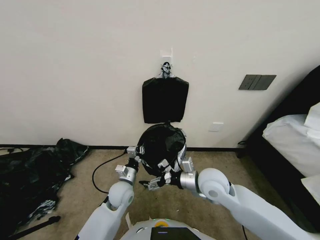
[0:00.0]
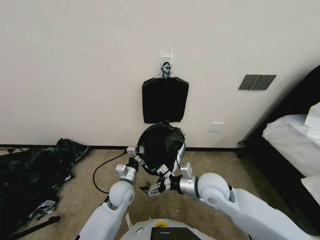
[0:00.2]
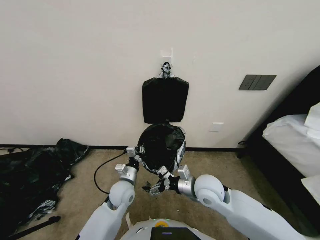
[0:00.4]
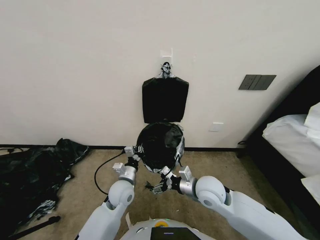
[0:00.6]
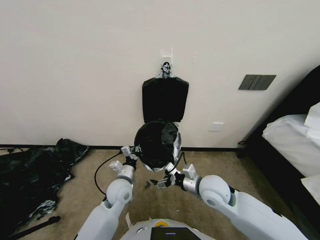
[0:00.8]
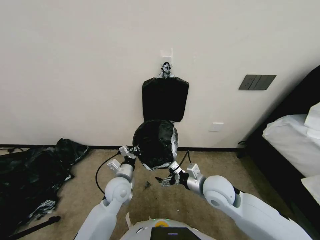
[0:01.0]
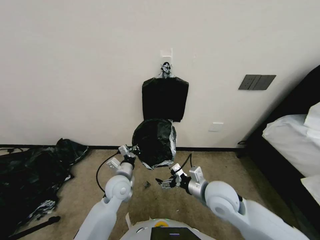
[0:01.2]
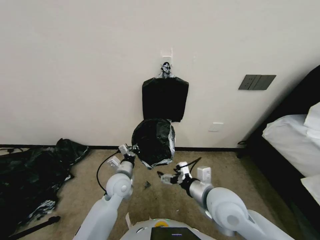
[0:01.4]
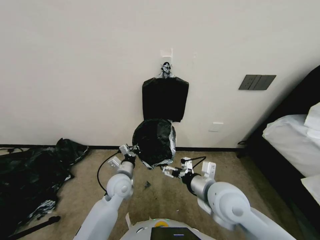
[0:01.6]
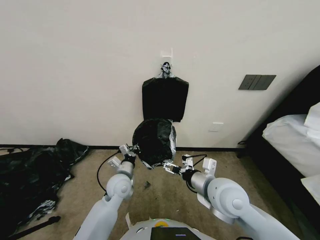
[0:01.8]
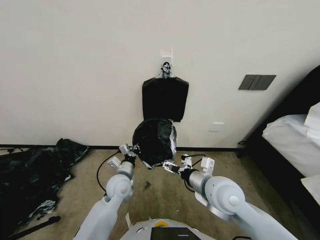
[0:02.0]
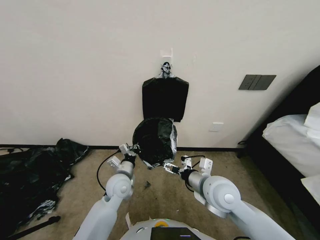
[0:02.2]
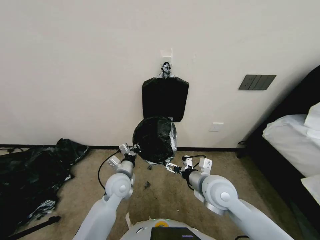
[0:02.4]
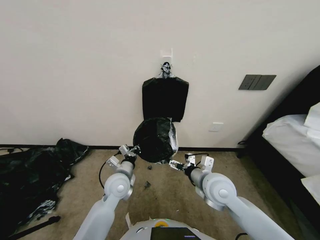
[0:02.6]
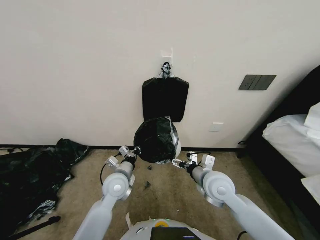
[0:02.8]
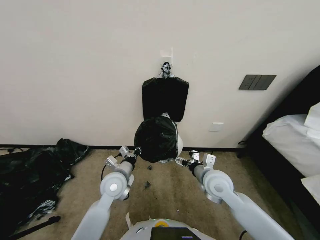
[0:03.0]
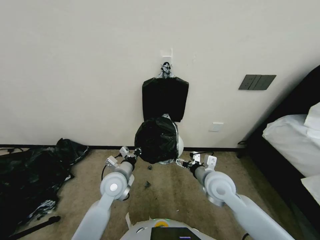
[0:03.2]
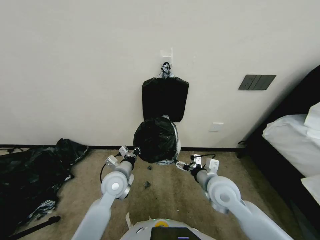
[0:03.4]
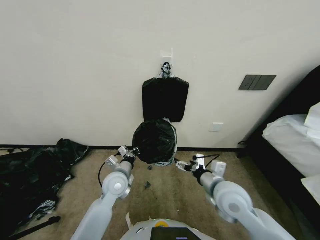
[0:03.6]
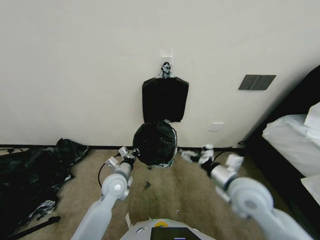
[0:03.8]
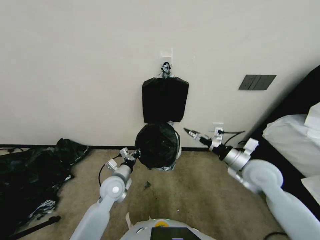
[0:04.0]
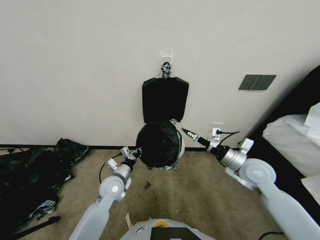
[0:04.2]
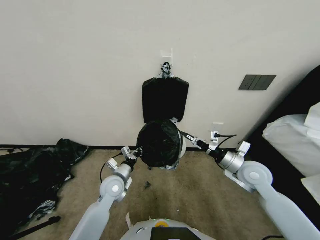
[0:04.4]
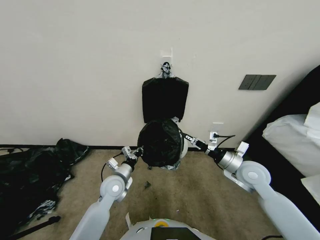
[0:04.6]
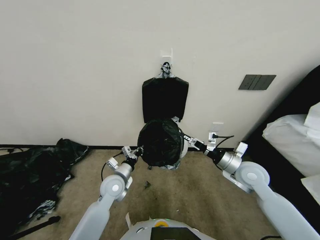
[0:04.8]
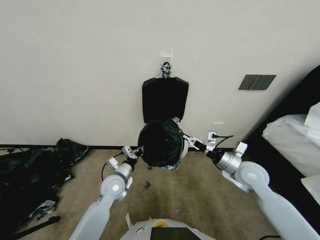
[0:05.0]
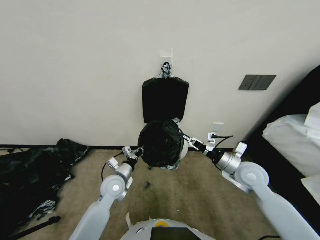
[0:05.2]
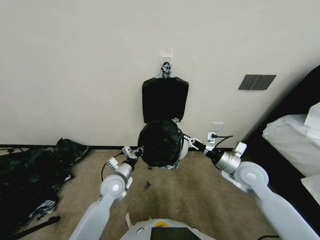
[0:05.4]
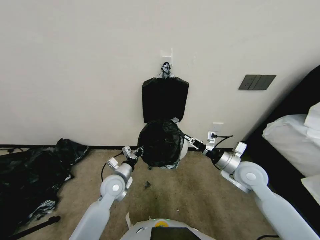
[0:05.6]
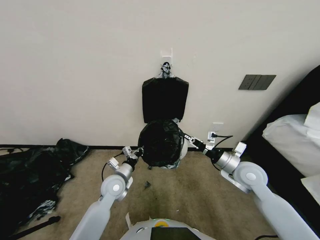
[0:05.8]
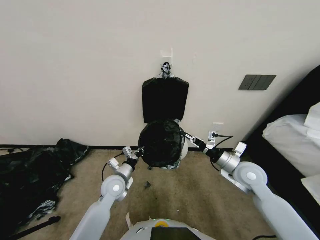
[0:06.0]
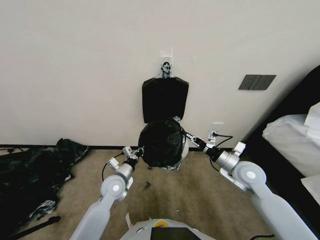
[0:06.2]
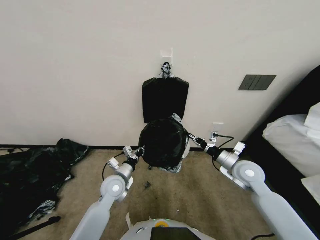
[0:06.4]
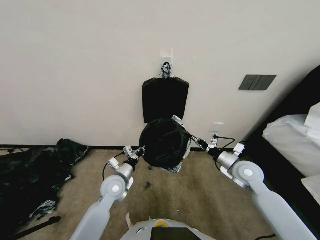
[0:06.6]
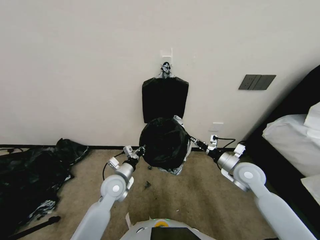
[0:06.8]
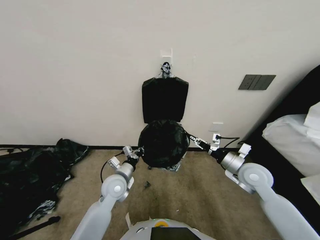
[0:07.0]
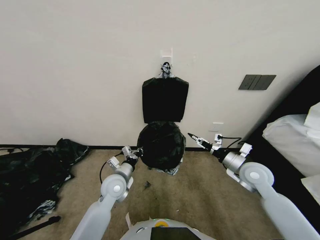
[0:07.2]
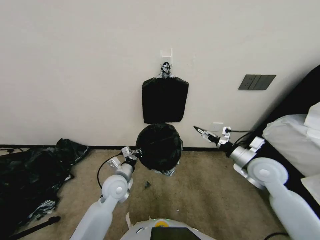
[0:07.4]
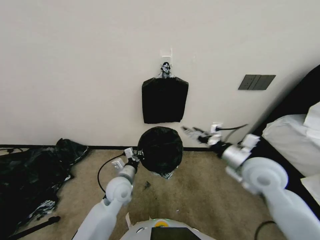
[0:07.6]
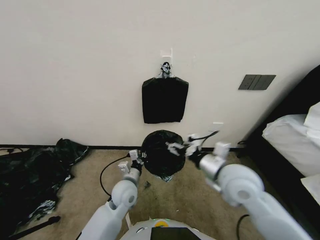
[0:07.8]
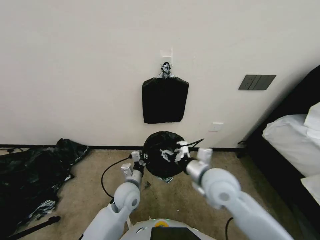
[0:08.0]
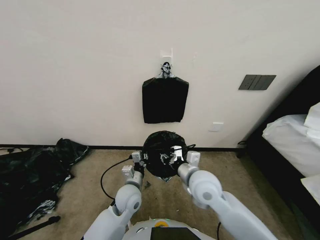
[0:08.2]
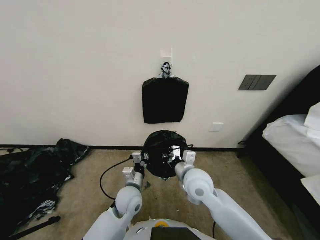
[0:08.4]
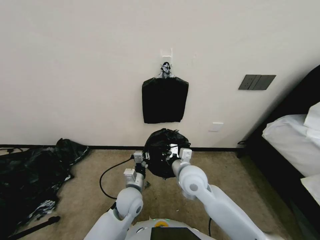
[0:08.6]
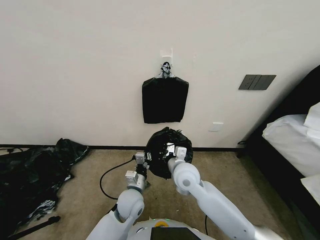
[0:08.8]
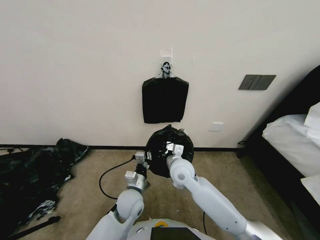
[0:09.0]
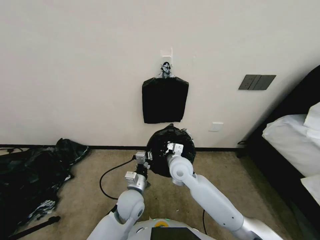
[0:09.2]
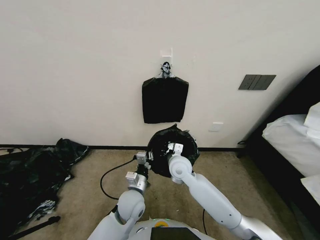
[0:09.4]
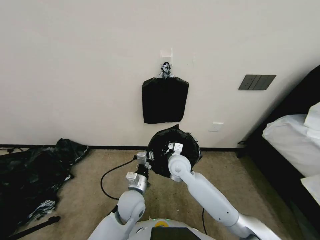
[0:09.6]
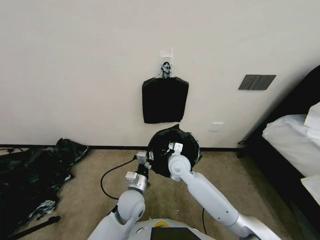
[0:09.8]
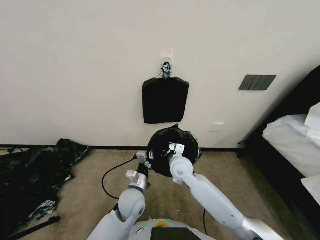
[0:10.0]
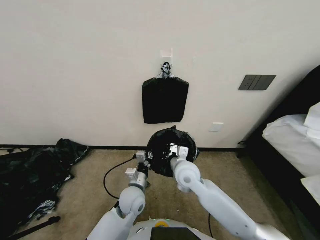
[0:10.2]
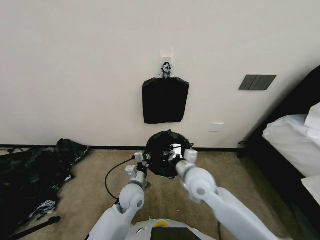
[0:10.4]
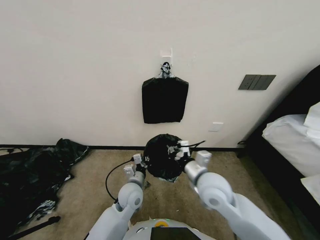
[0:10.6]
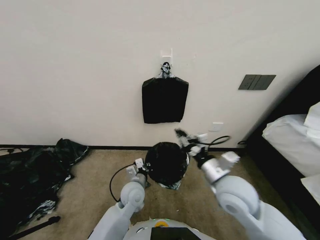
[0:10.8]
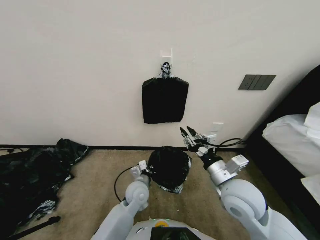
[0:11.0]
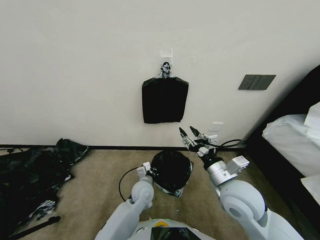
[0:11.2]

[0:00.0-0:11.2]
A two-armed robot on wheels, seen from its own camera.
Task of the whole recording: Place a trash bag onto the trash bin.
0:00.0 to 0:01.6: The right gripper moves backward, roughly 5 cm.
0:01.6 to 0:03.2: The right gripper moves forward and downward, approximately 10 cm.
0:03.2 to 0:04.8: The right gripper moves to the right, some 10 cm.
0:04.8 to 0:06.4: The right gripper closes its fingers.
0:06.4 to 0:08.0: The right gripper moves to the left, upward and backward, approximately 15 cm, and opens its fingers. The left gripper shifts about 5 cm to the right.
0:08.0 to 0:09.6: The right gripper heads forward, to the left and downward, covering about 20 cm, and closes.
0:09.6 to 0:11.2: The left gripper moves forward, approximately 5 cm; the right gripper is displaced backward, to the right and upward by approximately 20 cm, and opens.

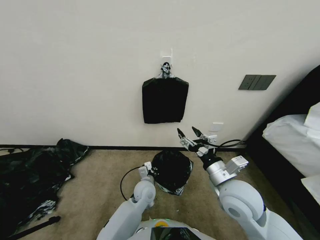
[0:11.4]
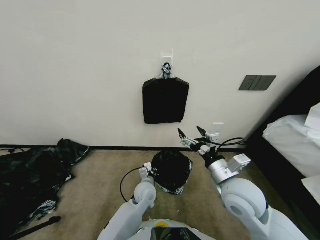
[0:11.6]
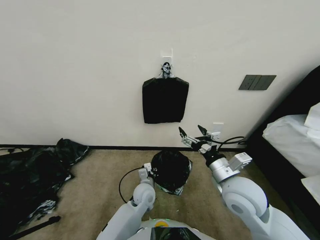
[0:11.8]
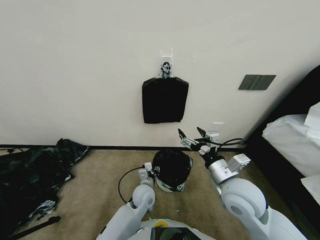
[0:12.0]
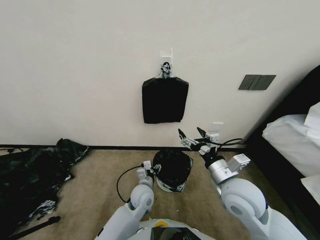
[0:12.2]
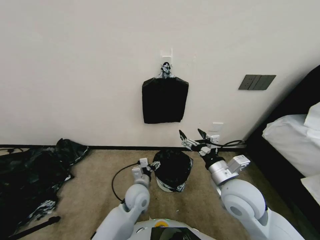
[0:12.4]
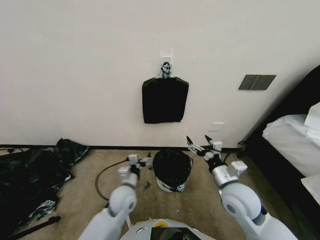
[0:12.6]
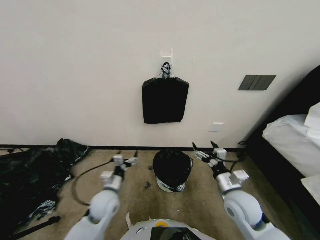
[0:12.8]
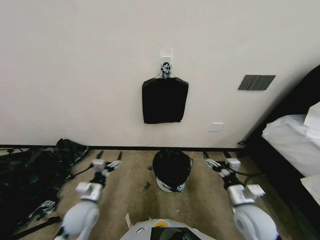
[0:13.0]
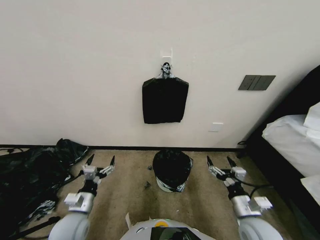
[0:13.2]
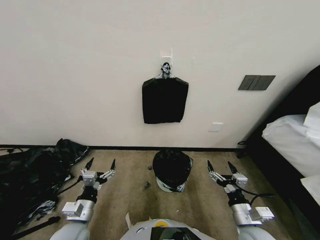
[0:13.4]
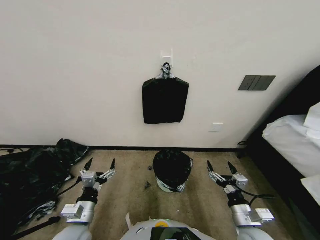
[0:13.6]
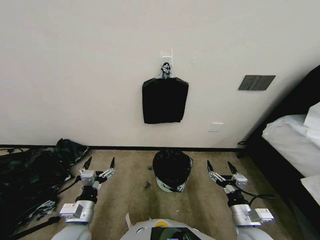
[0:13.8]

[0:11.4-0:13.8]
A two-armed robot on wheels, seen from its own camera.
Task of the whole recording: Place a trash bag onto the trash bin.
0:11.4 to 0:12.6: The left gripper shifts by about 5 cm, and opens.
0:12.6 to 0:13.8: The right gripper is displaced downward, backward and to the right by roughly 15 cm. Meanwhile the left gripper moves to the left and backward, roughly 20 cm.
